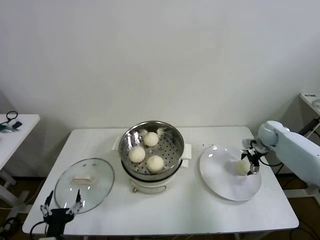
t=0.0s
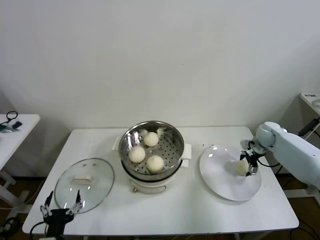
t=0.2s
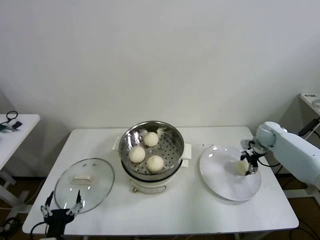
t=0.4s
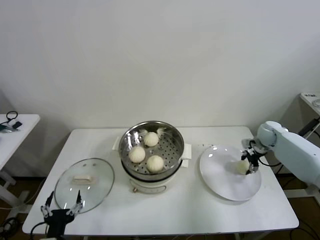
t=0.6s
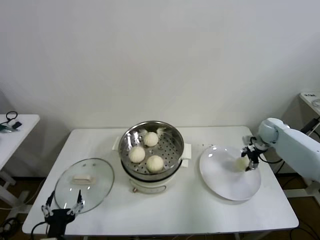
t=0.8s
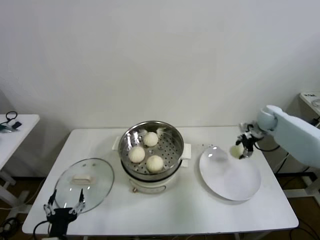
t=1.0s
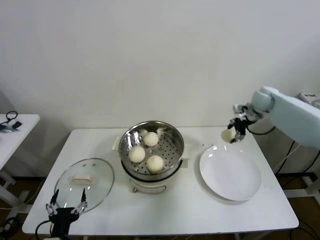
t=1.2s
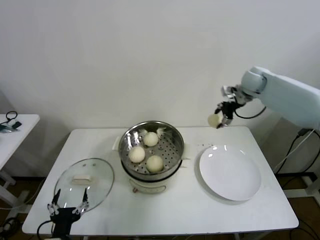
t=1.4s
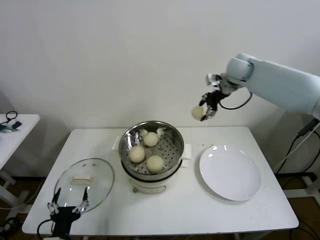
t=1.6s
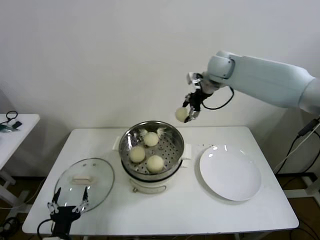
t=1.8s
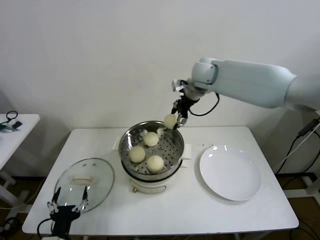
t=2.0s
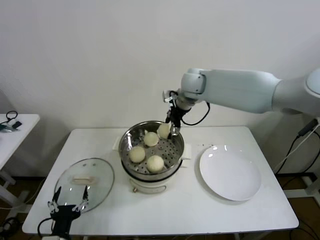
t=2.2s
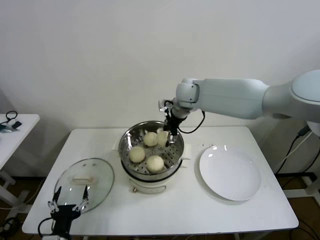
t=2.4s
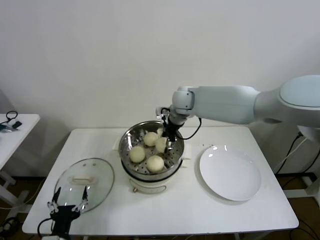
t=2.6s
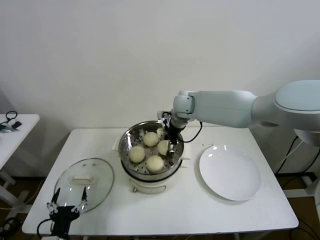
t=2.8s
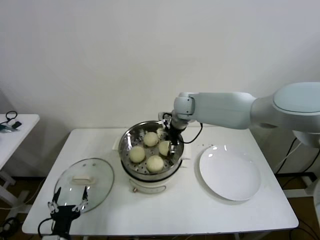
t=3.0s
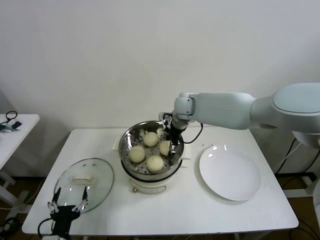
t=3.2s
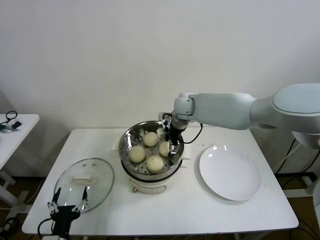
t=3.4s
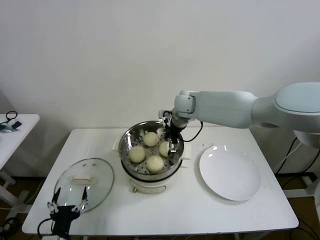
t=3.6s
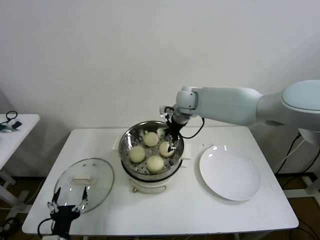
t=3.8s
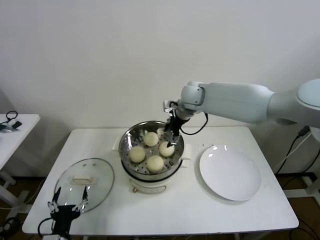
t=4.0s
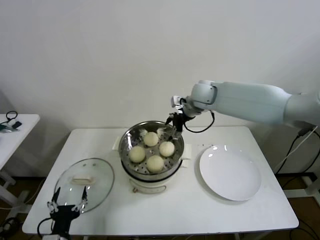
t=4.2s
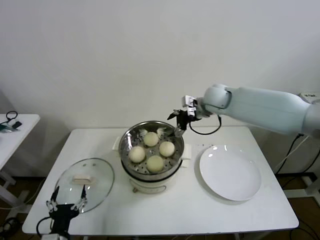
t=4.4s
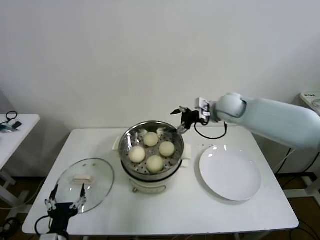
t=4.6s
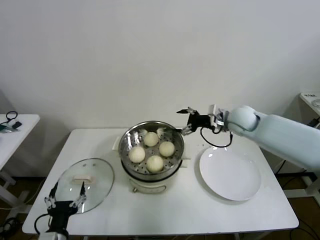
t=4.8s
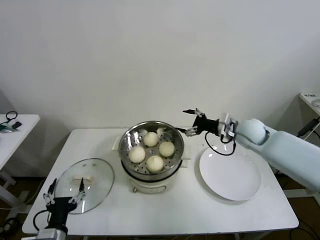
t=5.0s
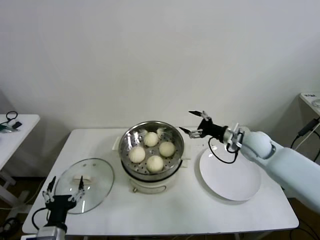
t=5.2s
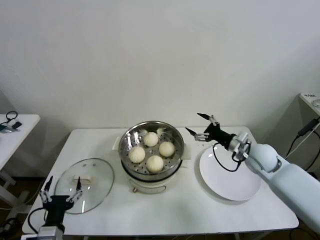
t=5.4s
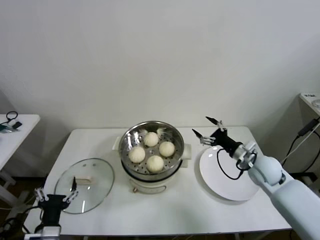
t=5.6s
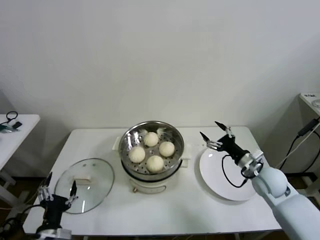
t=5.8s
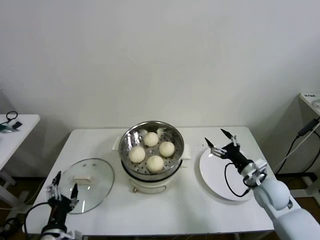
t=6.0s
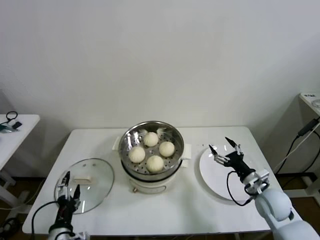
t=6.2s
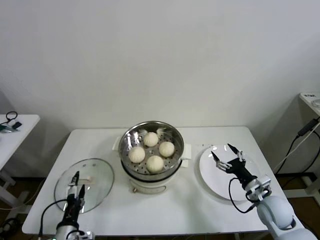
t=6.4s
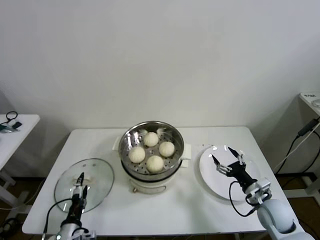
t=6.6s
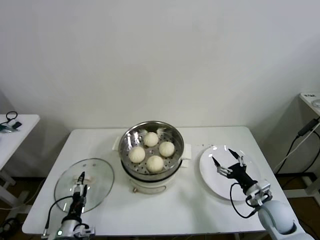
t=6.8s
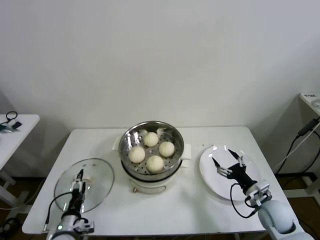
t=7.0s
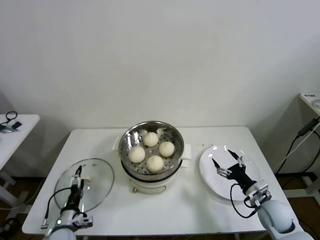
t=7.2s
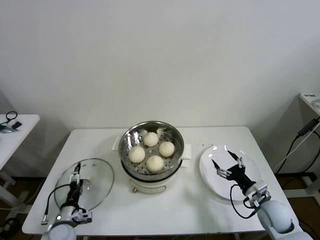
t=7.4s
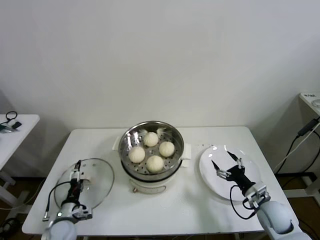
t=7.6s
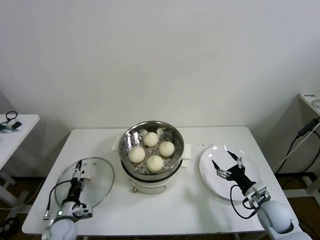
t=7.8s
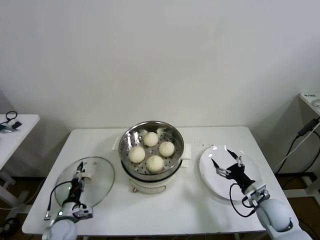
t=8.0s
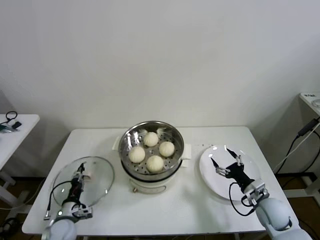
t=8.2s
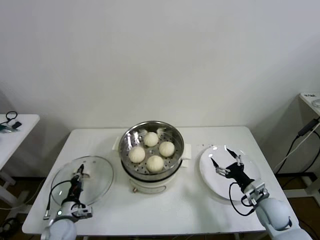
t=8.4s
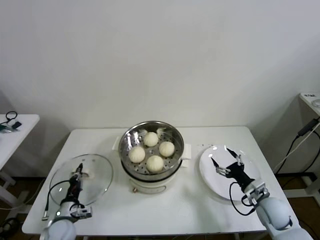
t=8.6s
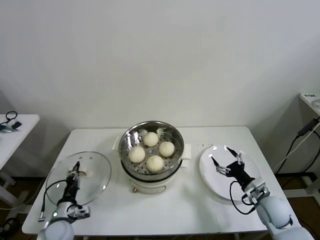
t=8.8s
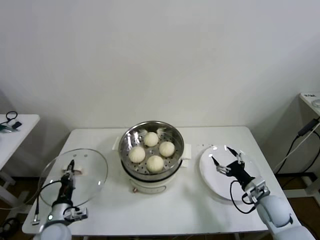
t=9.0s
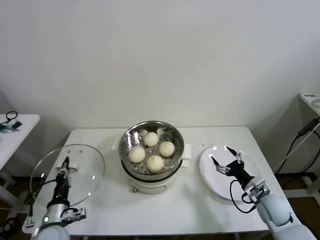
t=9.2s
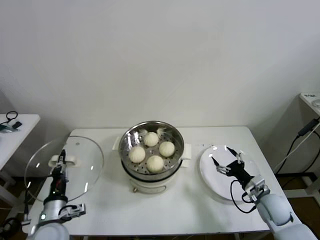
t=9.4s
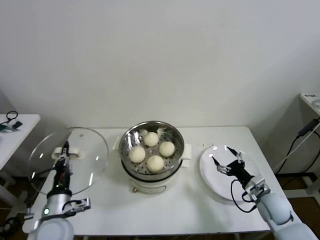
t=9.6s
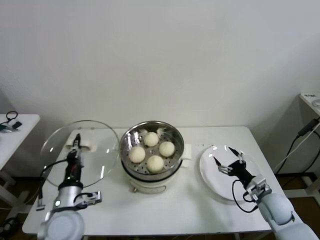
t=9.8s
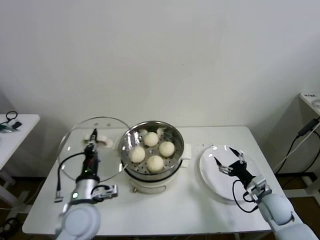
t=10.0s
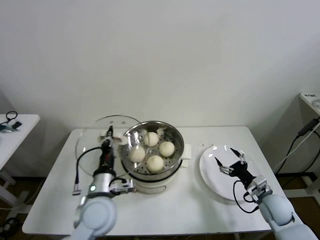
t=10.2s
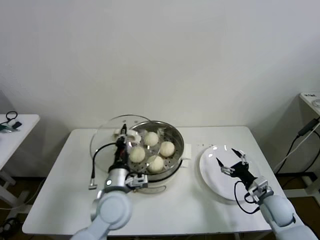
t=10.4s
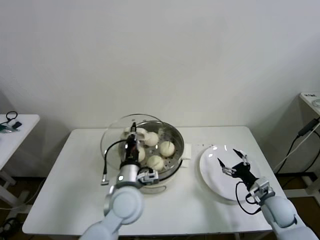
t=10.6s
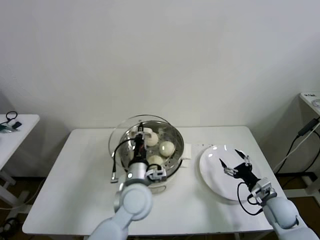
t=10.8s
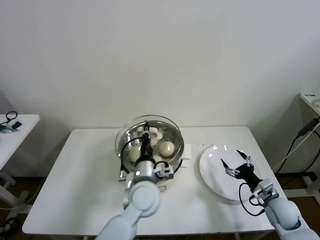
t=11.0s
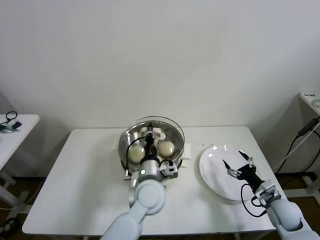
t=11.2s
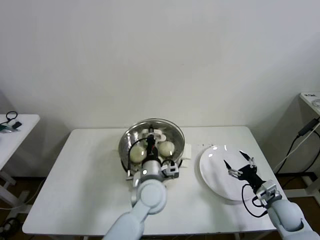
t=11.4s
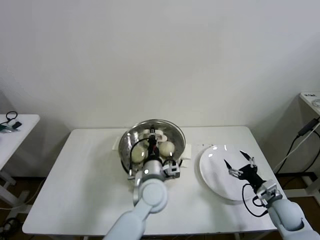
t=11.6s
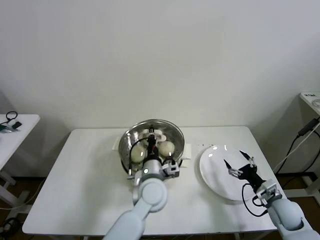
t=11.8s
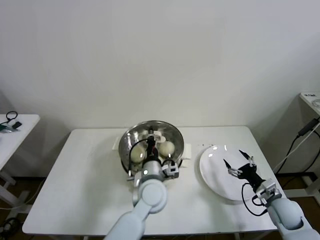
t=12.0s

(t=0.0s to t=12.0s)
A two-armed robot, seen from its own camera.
Step, t=0.6s - t=3.4s: Place the baozi on the steamer with right gripper.
Step, t=3.6s - t=8.4s: Grasp the pot lid with left gripper.
t=0.0s - t=1.6s: The right gripper is displaced upward and to the left by approximately 30 cm, and closes its fingers.
t=1.6s - t=3.0s: The right gripper shifts roughly 20 cm to the left and downward.
t=3.0s - t=4.4s: The right gripper travels to the right by about 10 cm, and opens up.
t=4.4s - t=6.0s: The right gripper goes about 35 cm backward, downward and to the right.
t=6.0s - t=7.6s: The right gripper travels downward and backward by roughly 10 cm. The left gripper goes some 15 cm downward and forward.
t=7.6s - t=9.0s: The left gripper closes its fingers.
t=9.0s - t=10.4s: The left gripper goes roughly 25 cm to the right and upward.
t=10.4s - t=12.0s: The left gripper moves to the right and forward, about 10 cm.

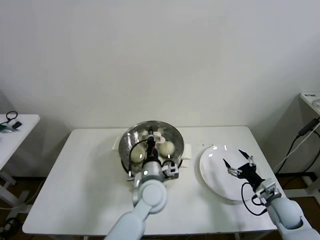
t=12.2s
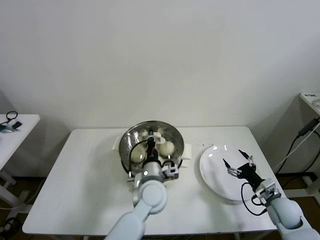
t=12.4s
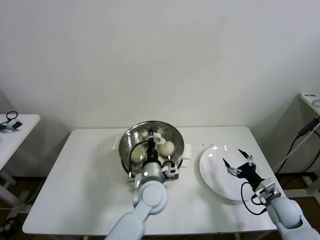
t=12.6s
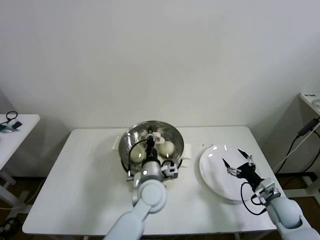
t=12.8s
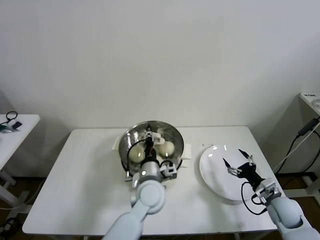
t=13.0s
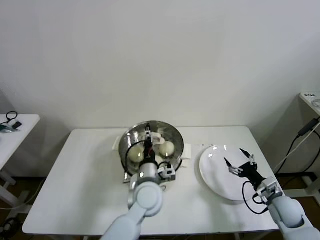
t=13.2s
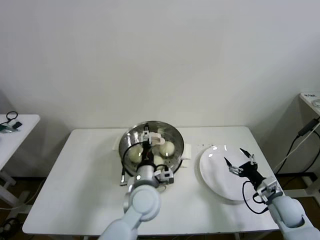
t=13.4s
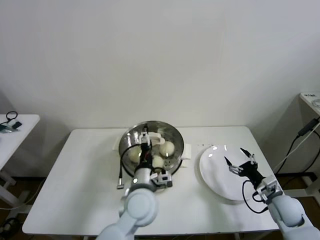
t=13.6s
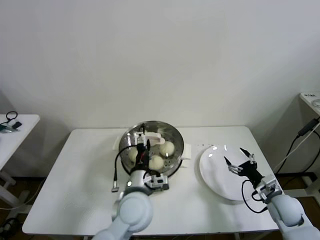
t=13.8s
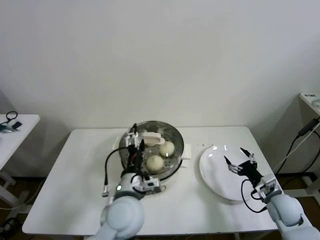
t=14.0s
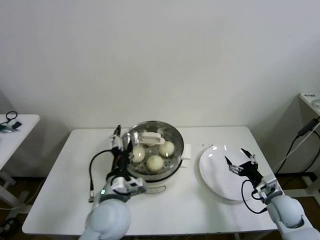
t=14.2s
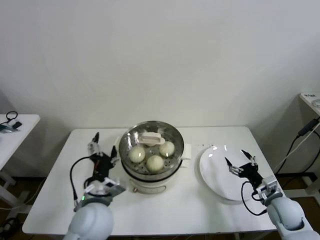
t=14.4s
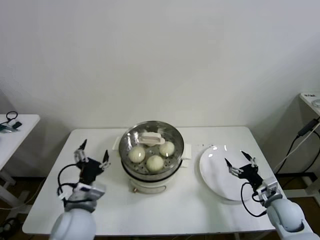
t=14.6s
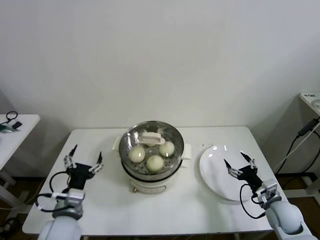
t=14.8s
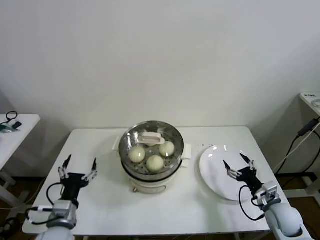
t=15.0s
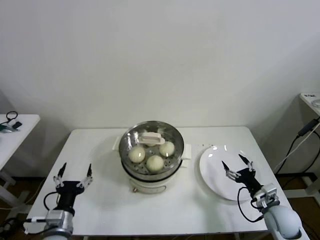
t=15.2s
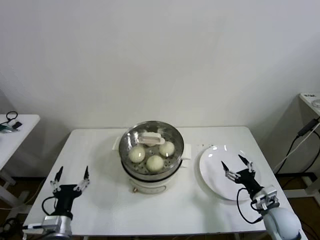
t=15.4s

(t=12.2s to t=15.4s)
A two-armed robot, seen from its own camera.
t=12.2s - t=13.8s: The left gripper shifts by some 5 cm, and opens its fingers.
t=13.8s - t=15.4s: The left gripper moves to the left and backward, approximately 25 cm.

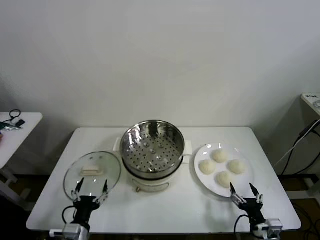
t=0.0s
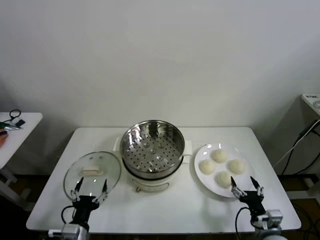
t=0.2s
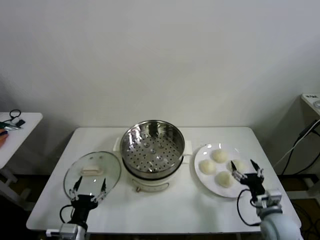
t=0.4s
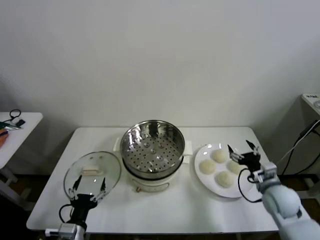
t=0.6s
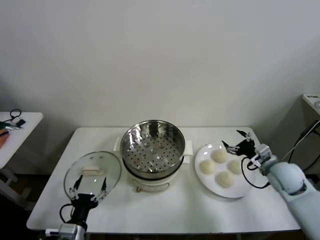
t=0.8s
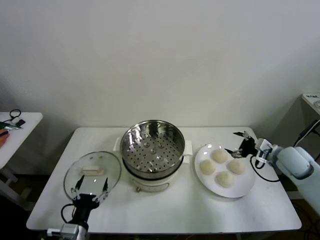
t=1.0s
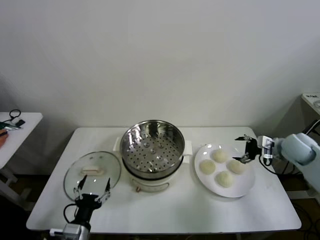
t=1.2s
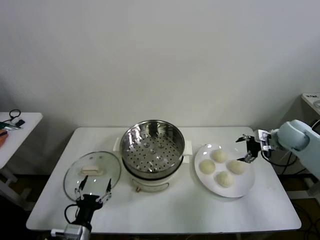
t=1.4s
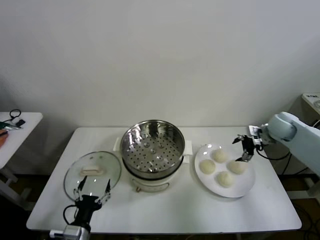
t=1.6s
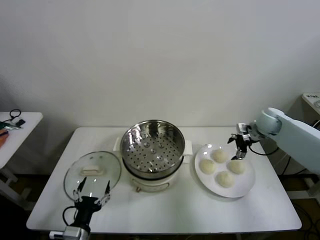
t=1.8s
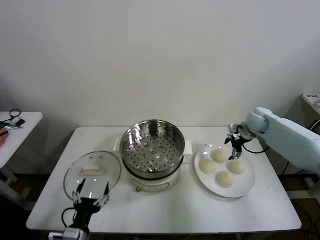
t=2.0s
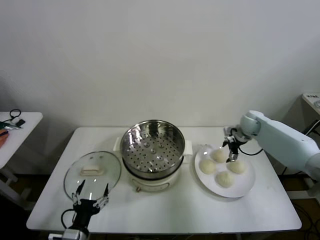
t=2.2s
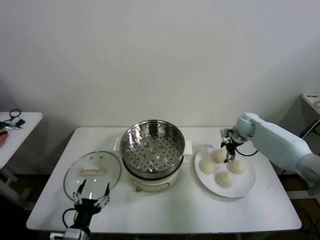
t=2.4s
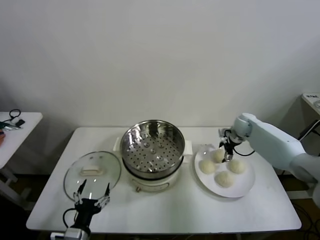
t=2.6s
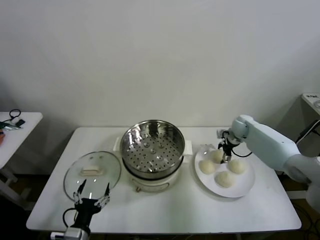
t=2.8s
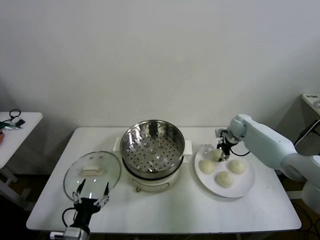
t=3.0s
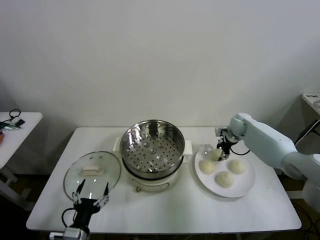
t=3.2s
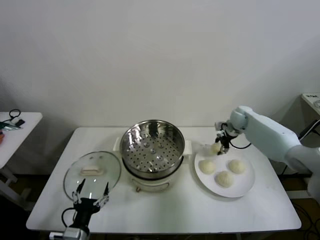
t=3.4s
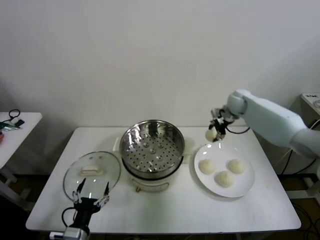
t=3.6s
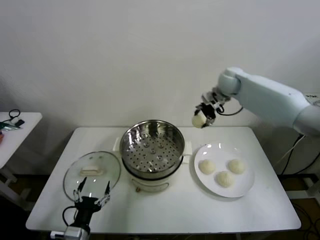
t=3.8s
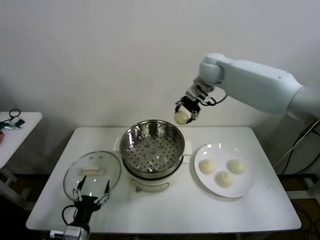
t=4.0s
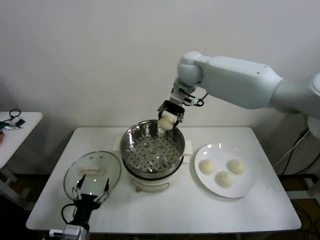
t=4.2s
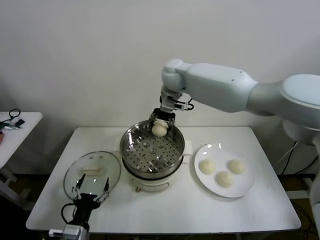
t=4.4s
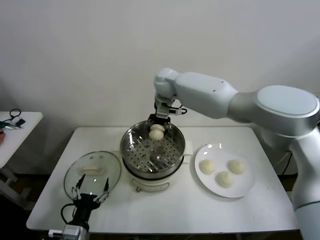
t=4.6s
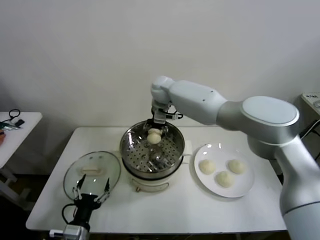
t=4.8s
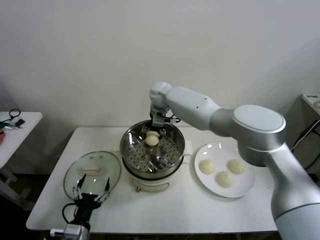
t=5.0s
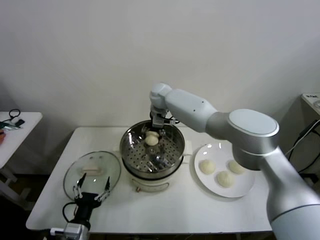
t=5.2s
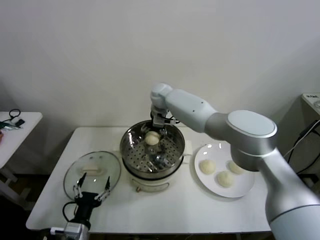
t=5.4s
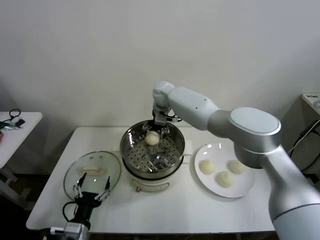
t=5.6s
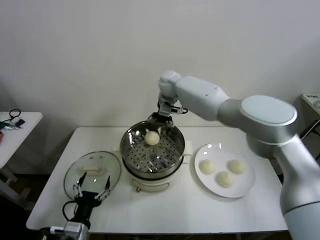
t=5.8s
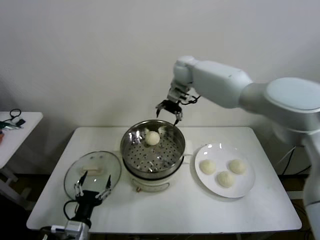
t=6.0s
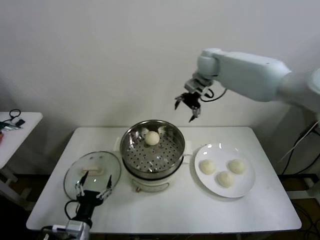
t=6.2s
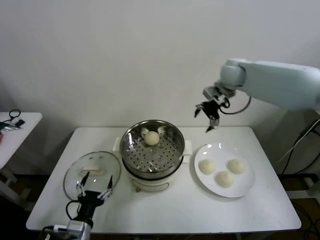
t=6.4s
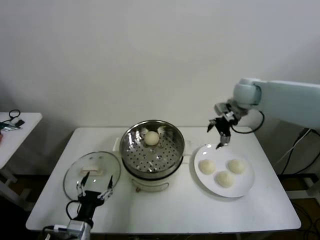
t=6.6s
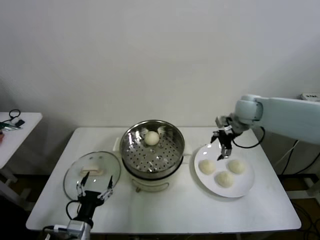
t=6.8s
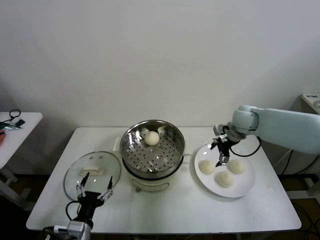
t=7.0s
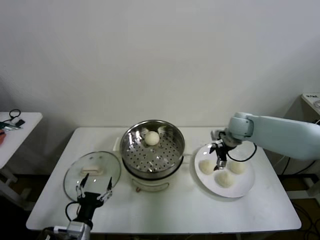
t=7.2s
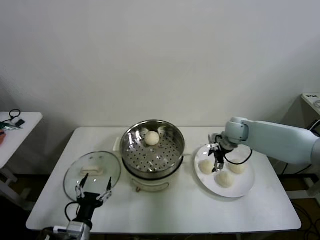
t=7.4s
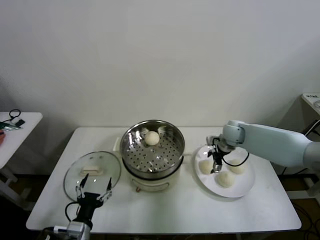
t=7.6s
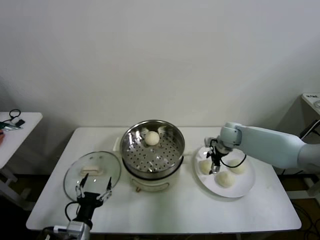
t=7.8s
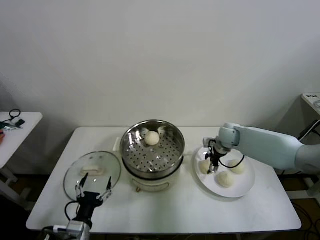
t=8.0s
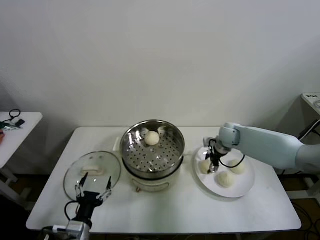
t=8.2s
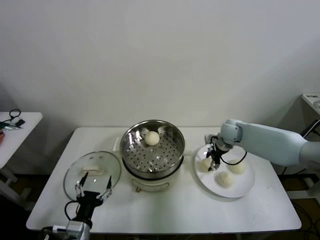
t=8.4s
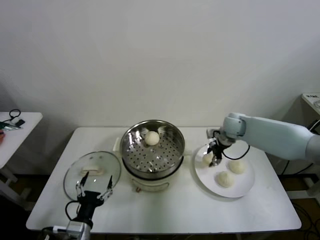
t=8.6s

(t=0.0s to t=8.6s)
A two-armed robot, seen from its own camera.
Step, t=0.0s - t=3.0s: Grasp the baozi in the plate with right gripper.
Step, t=3.2s - t=5.4s: Place the baozi on the steamer with right gripper.
Step, t=5.6s - t=8.0s: Grasp the baozi in the plate with right gripper.
t=1.4s - t=2.8s: The right gripper shifts some 15 cm forward, downward and to the left, and closes.
t=2.8s - t=4.4s: The right gripper is displaced to the left and upward by roughly 40 cm, and closes up.
t=4.4s - t=5.8s: The right gripper moves about 10 cm downward and comes back, and opens up.
t=5.8s - t=7.2s: The right gripper heads to the right, downward and backward, covering some 30 cm.
t=7.2s - t=8.6s: The right gripper closes.
